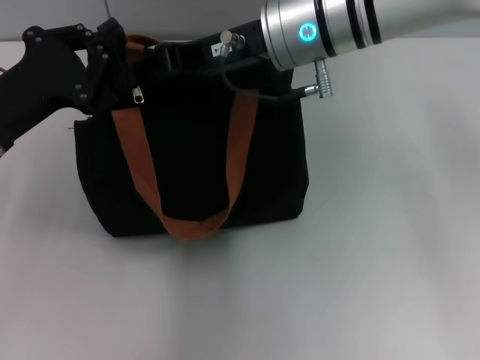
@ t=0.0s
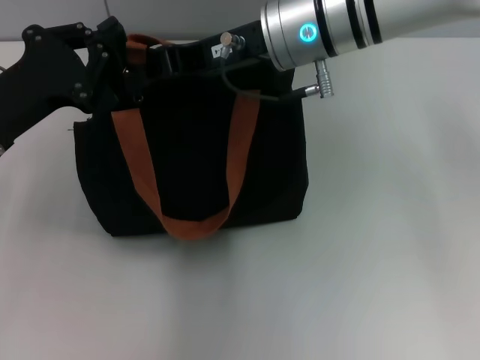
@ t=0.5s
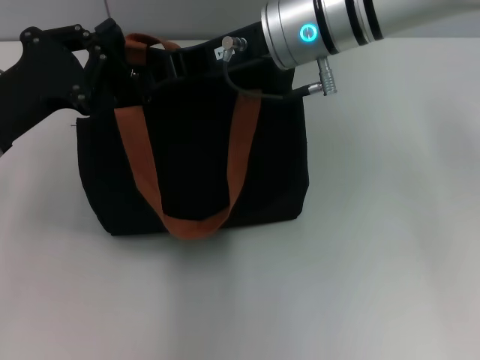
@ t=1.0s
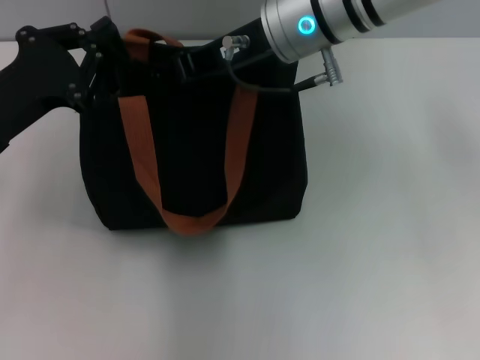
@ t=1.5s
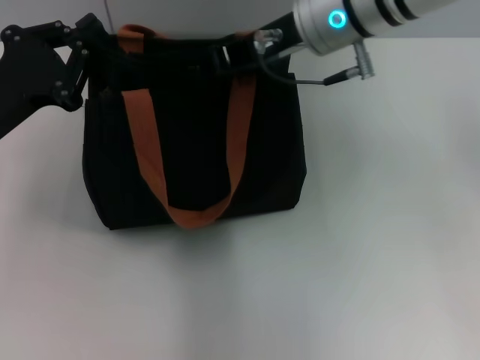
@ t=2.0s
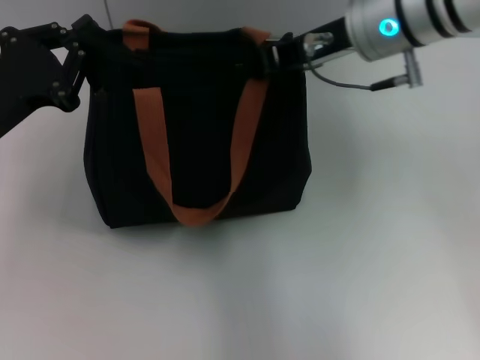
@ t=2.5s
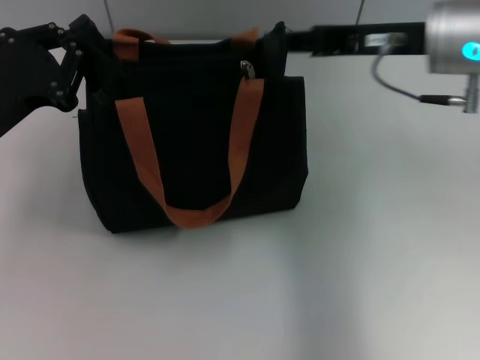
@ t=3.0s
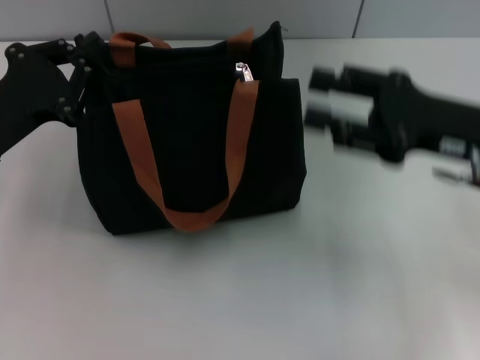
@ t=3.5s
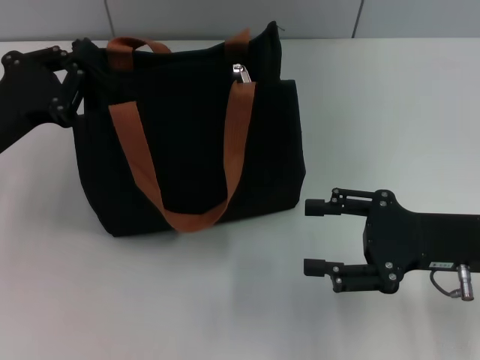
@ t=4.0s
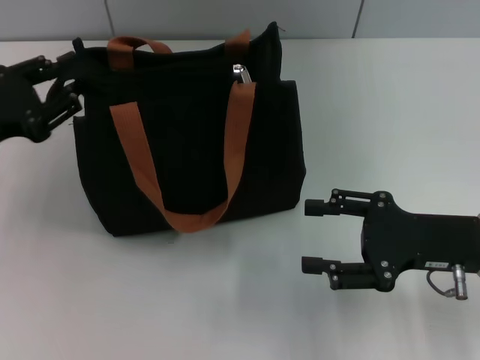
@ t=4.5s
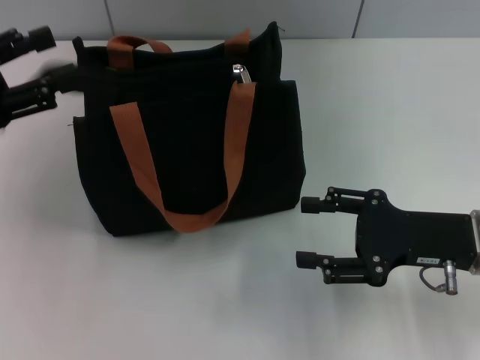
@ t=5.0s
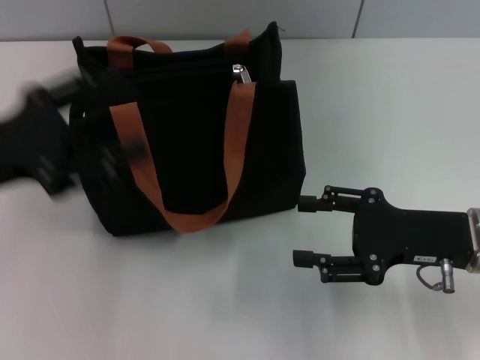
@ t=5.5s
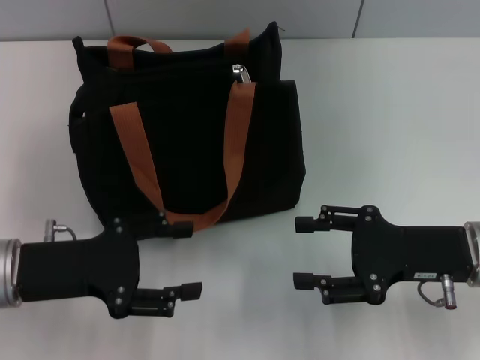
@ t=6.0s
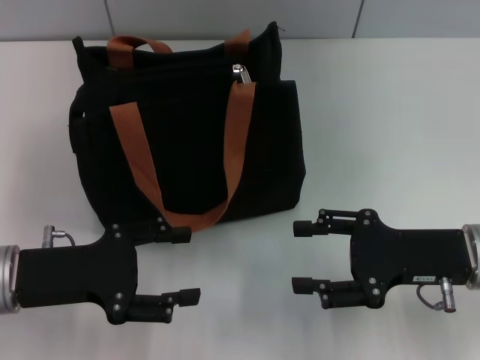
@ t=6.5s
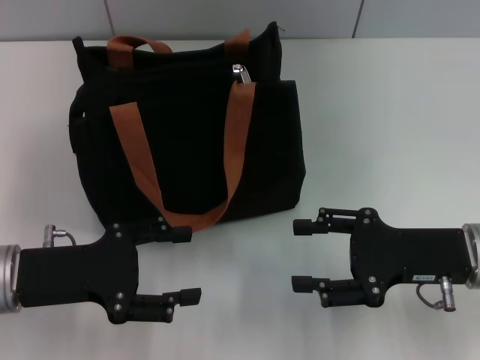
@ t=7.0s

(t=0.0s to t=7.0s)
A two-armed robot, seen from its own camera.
Step, t=0.0s - t=3.0s: Pull up the zipper with your right hand.
Step, t=3.5s - t=5.0s: Grab the zipper with your left hand.
t=0.0s - t=2.0s: The right gripper closes.
t=2.0s - t=3.5s: The right gripper goes some 20 cm to the right, backward and downward, and opens up.
t=3.5s - t=5.0s: The left gripper travels upward and to the left by some 10 cm, and opens up, while the right gripper shifts roughly 5 cm downward.
t=5.0s - t=7.0s: The left gripper heads downward, to the right and backward, covering approximately 15 cm.
